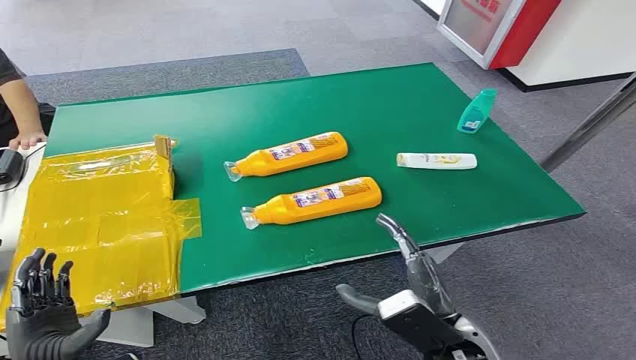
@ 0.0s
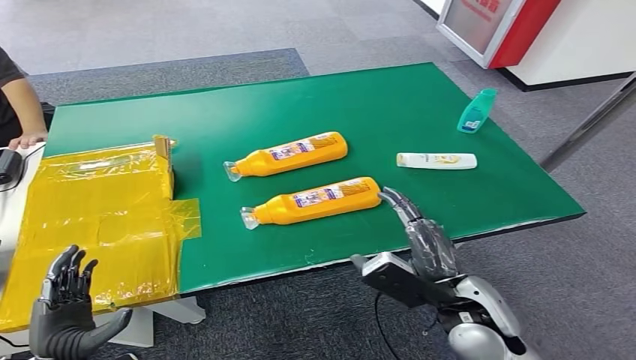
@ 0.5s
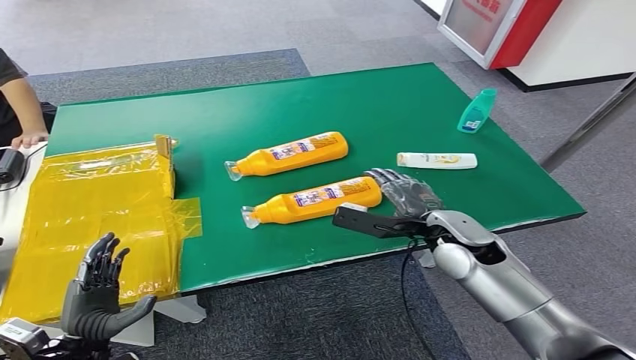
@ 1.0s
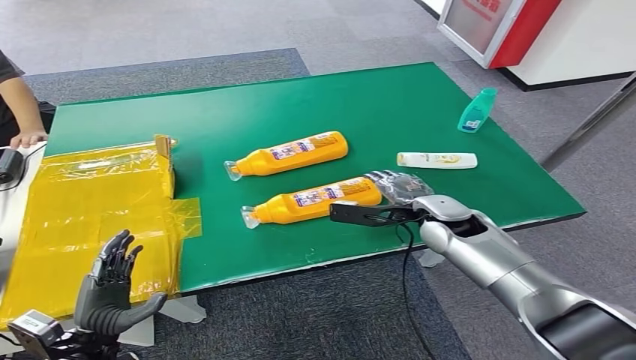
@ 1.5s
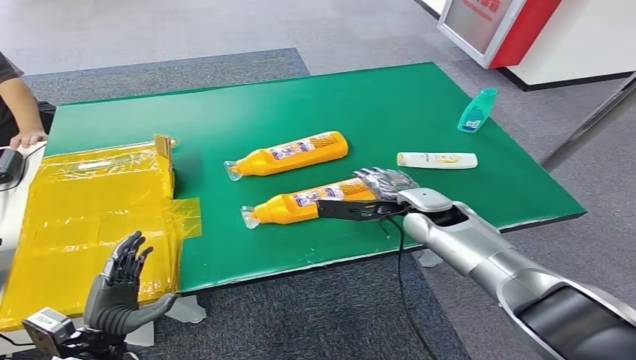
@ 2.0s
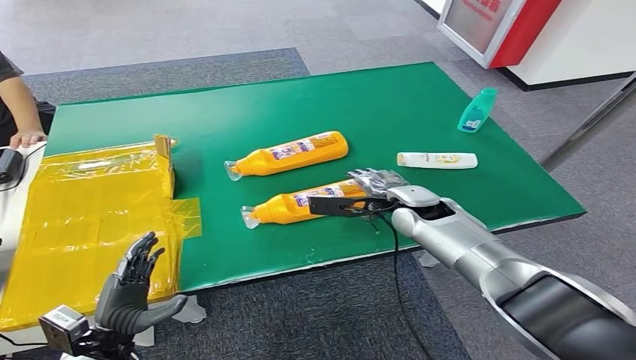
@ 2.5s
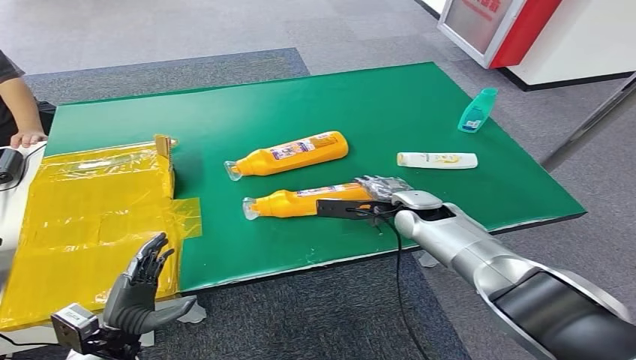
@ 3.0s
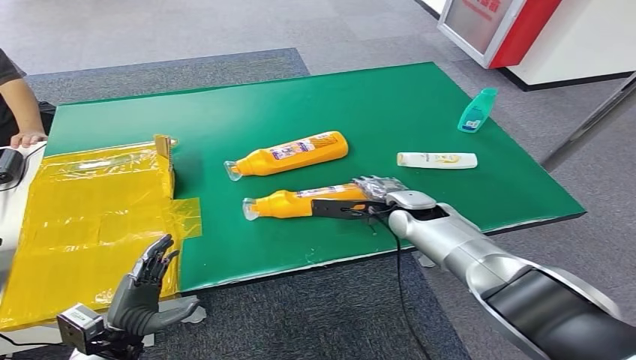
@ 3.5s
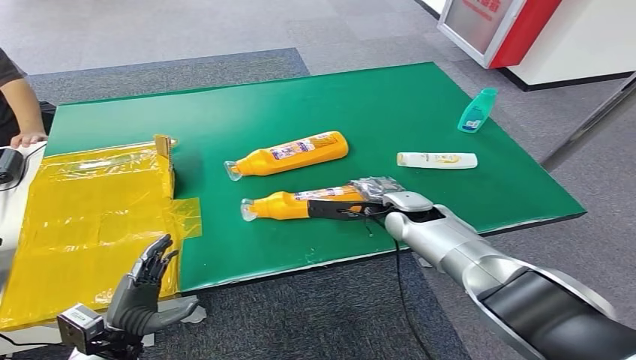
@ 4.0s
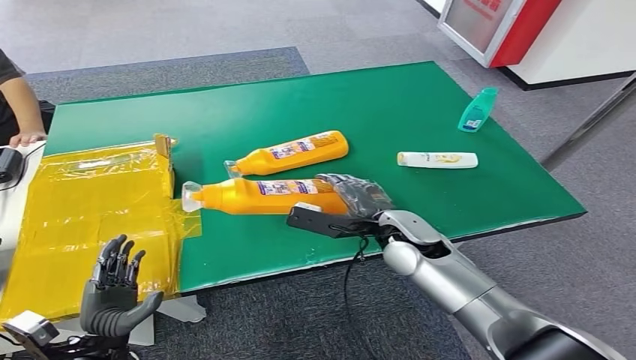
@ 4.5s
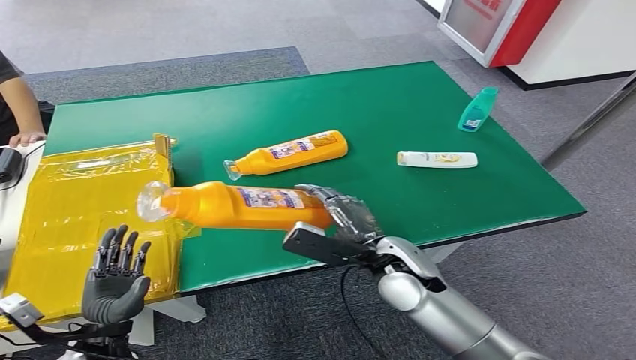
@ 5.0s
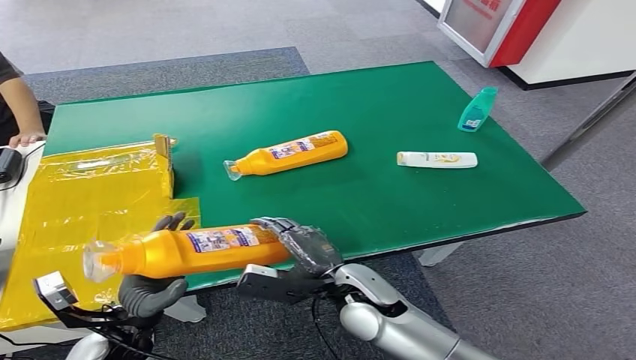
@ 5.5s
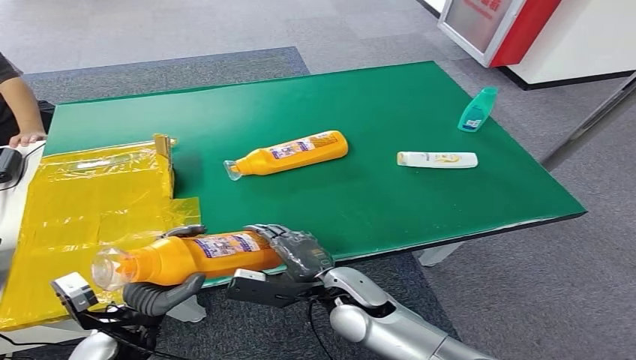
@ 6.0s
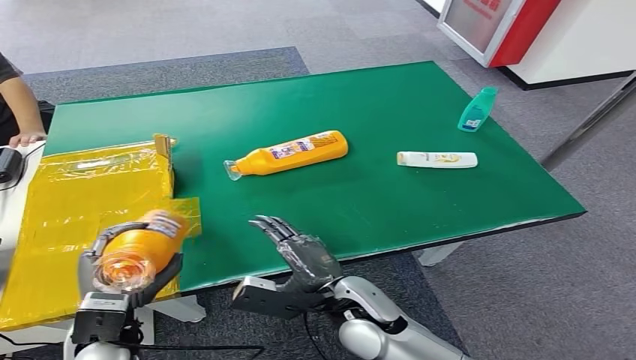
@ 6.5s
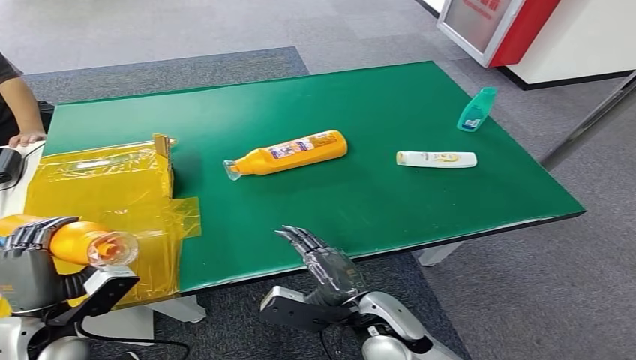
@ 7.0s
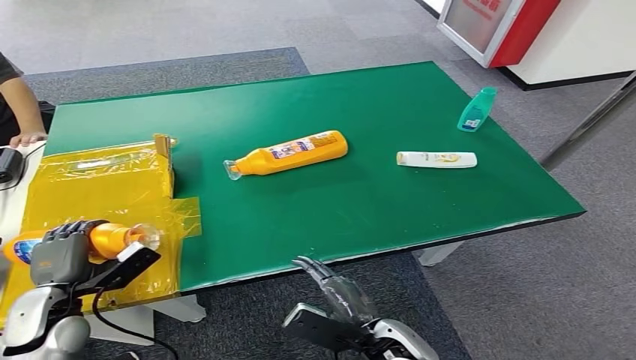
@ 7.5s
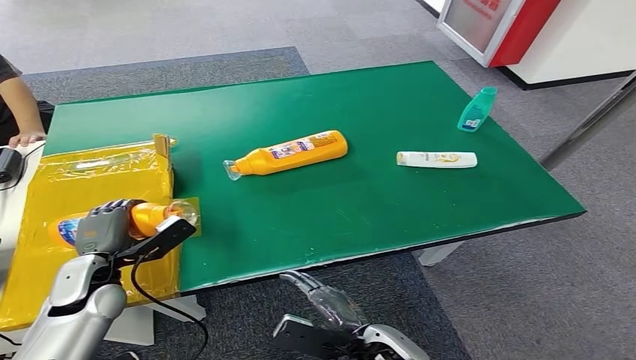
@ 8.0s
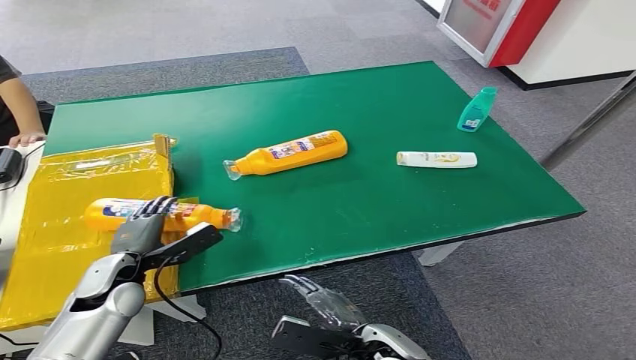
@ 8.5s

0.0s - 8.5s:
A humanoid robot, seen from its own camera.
Step, 0.0s - 4.5s: Pick up the bottle from the table.
Step, 5.0s - 8.5s: Turn the bottle to the front side.
2.0s - 4.0s: There are only small adjustments of the hands.
6.5s - 8.5s: The left hand travels forward by approximately 10 cm; the right hand moves downward and backward, about 10 cm.
